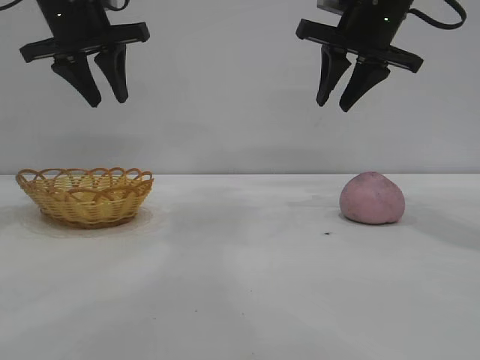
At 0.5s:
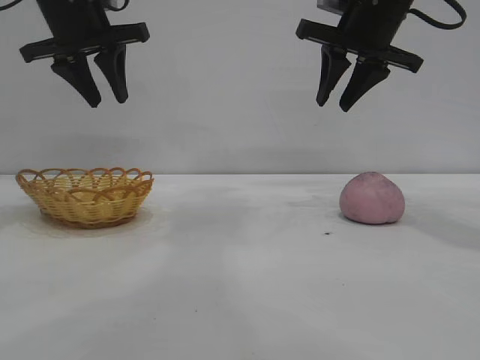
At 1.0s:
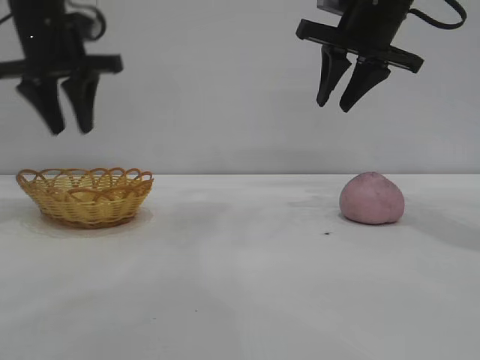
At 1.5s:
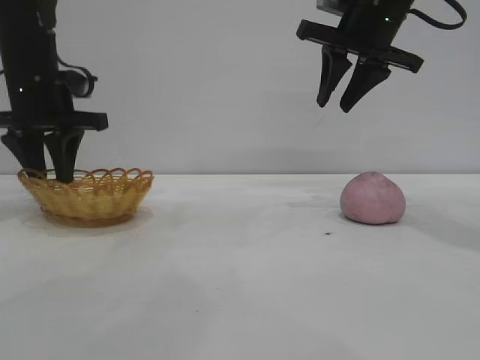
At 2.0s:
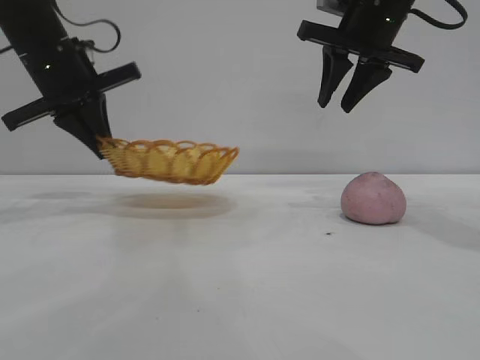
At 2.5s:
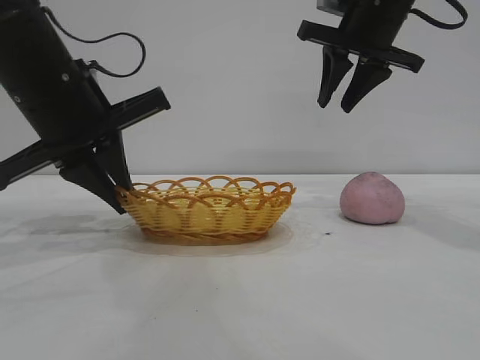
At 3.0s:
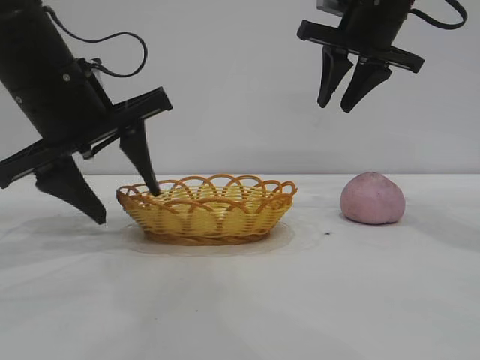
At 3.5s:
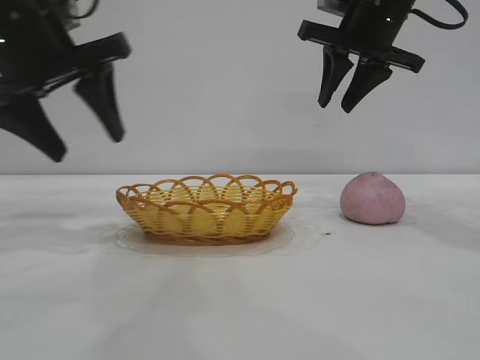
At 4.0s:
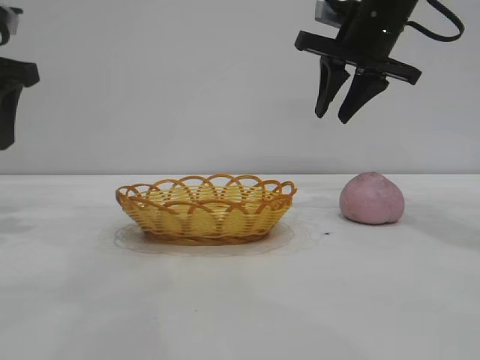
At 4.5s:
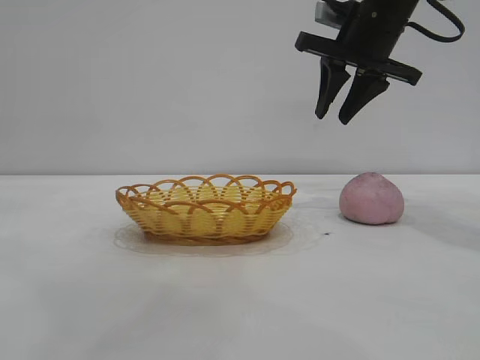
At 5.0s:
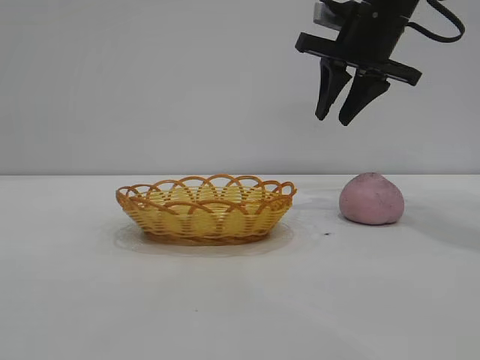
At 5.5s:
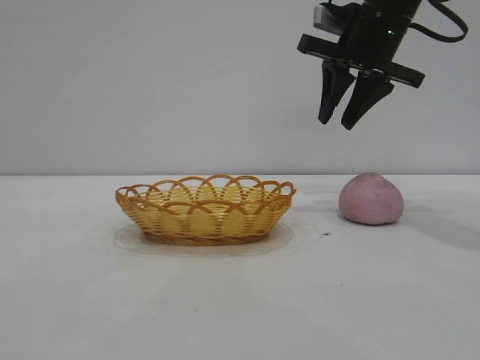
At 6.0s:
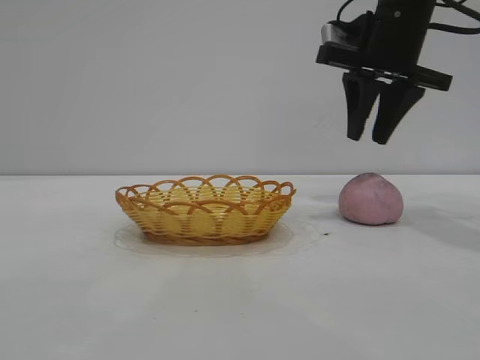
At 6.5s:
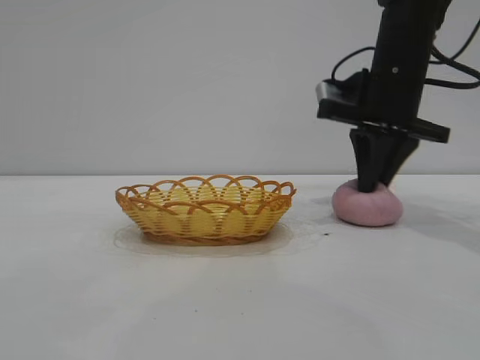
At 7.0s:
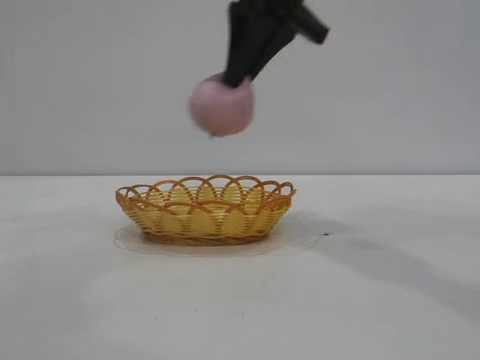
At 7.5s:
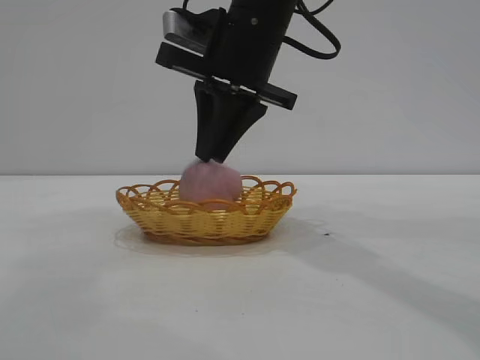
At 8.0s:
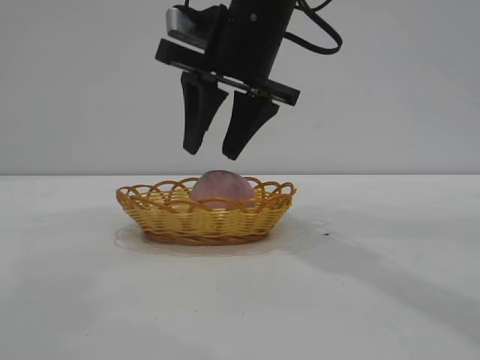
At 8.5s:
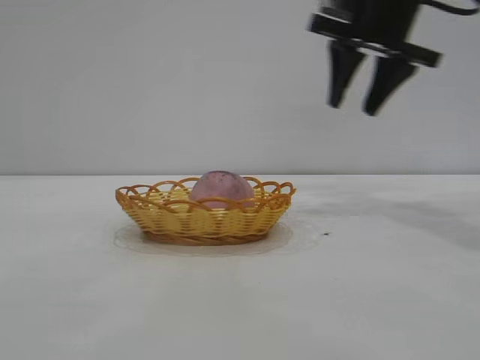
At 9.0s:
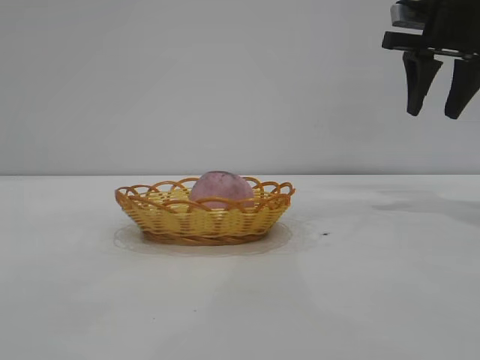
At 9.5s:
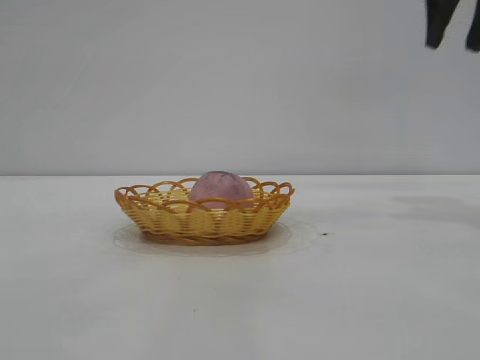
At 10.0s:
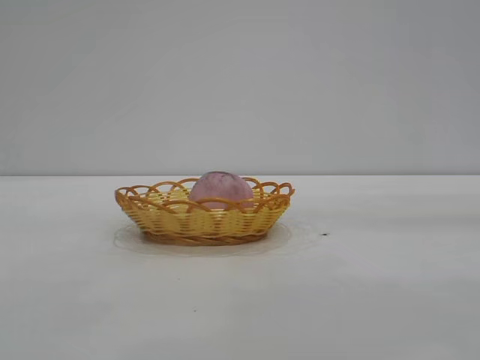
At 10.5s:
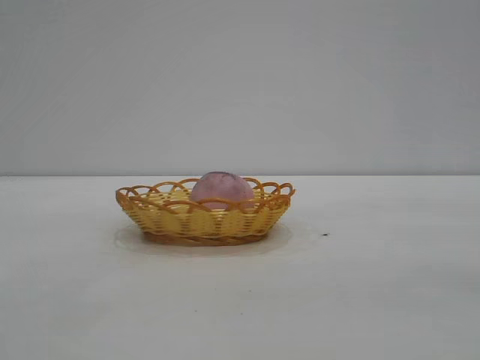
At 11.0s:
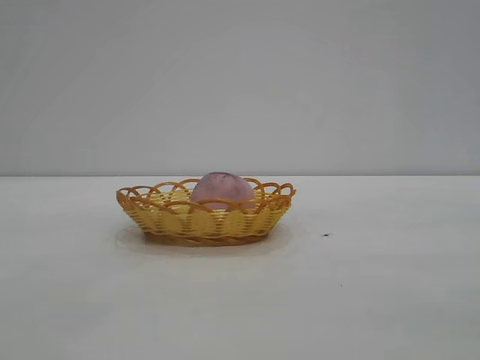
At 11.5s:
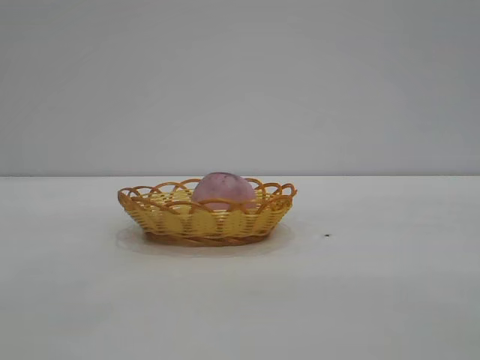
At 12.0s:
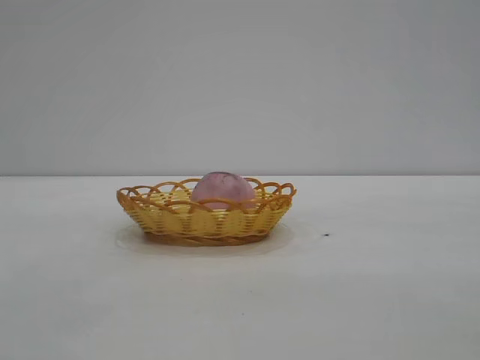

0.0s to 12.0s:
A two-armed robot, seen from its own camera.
Task of the whole recording: pick up the peach and put it into the basket.
Step, 0.0s to 3.0s: Move the basket to the center of view.
Step, 3.5s to 6.5s: Pick up the peach.
Step, 7.0s to 8.0s: place the peach into the basket.

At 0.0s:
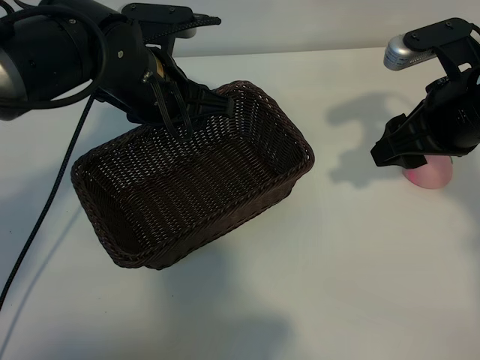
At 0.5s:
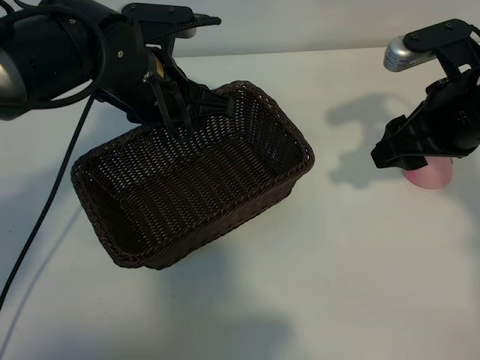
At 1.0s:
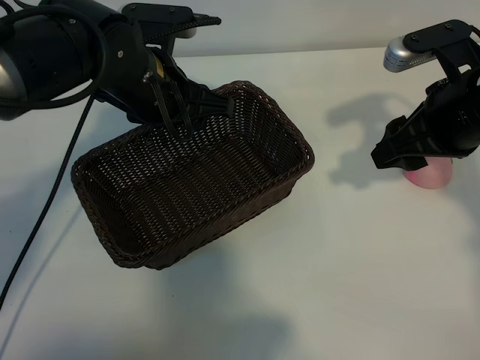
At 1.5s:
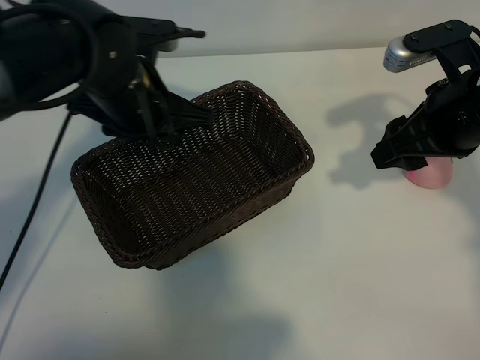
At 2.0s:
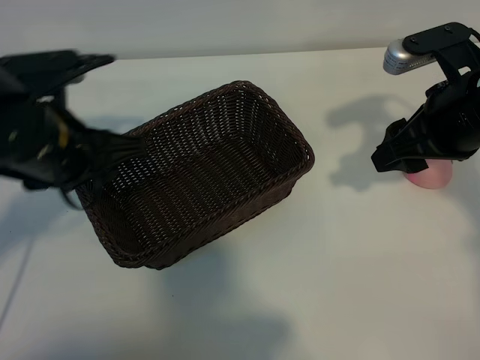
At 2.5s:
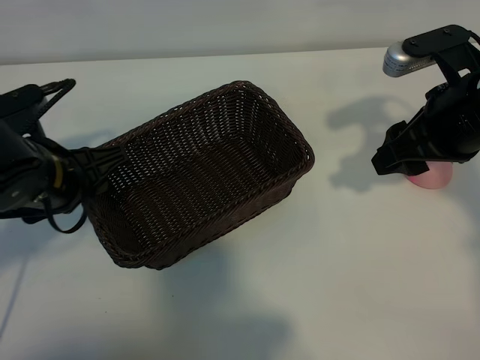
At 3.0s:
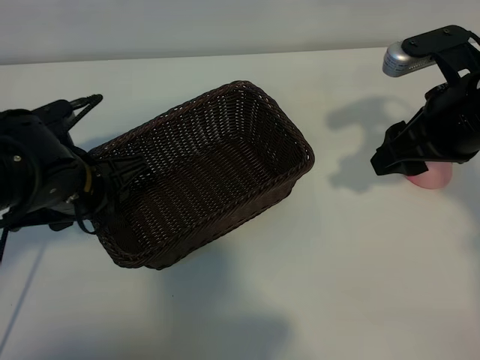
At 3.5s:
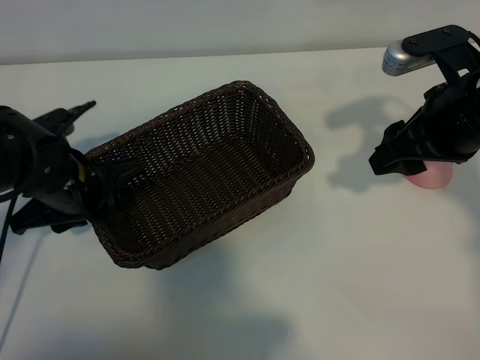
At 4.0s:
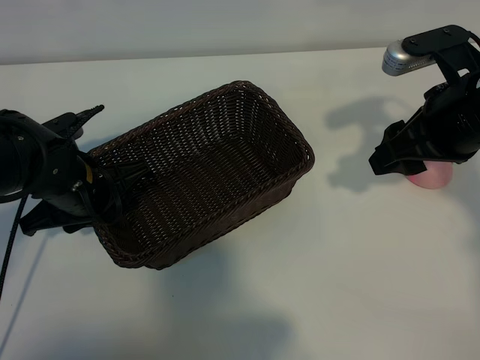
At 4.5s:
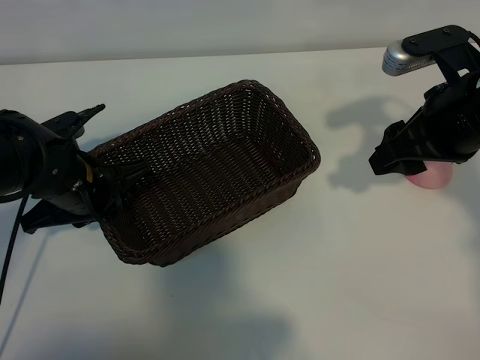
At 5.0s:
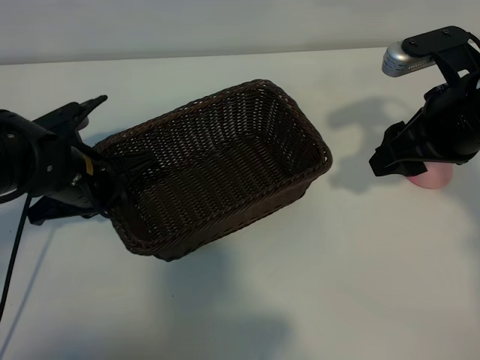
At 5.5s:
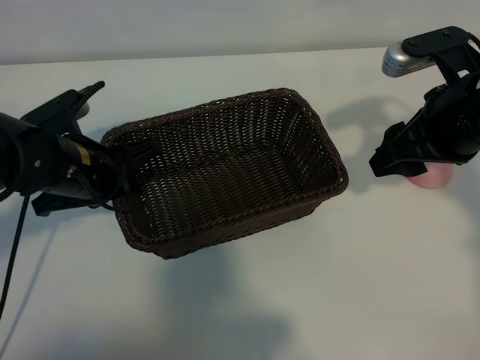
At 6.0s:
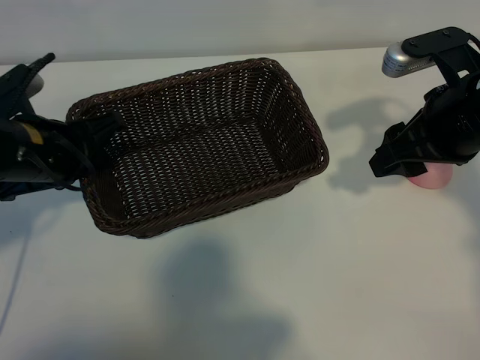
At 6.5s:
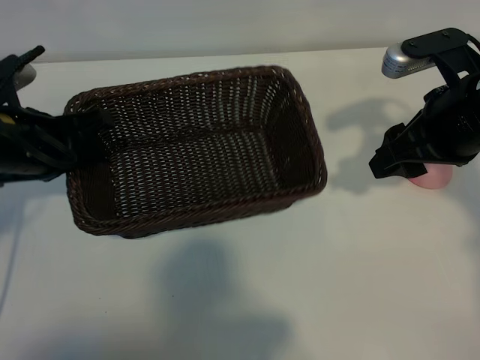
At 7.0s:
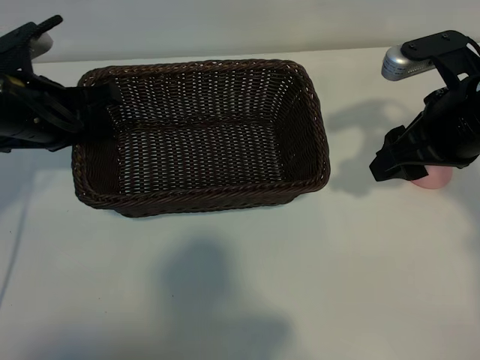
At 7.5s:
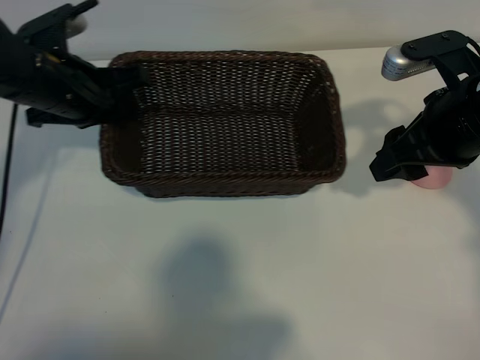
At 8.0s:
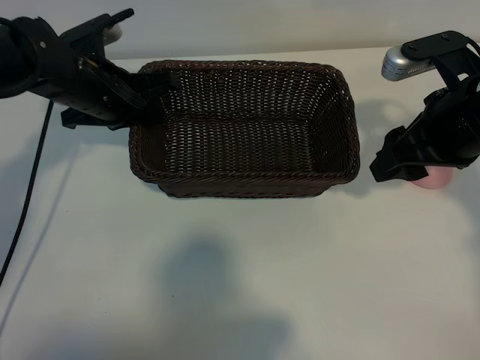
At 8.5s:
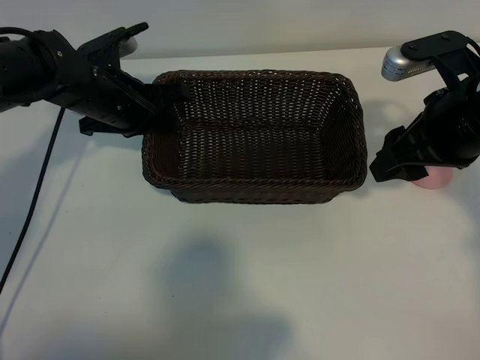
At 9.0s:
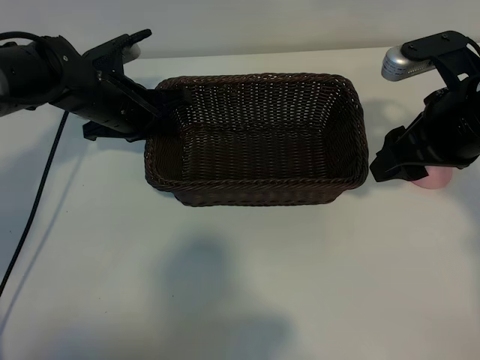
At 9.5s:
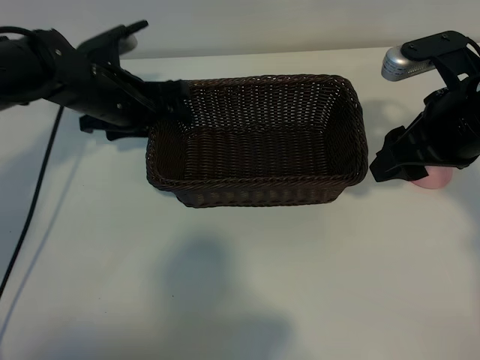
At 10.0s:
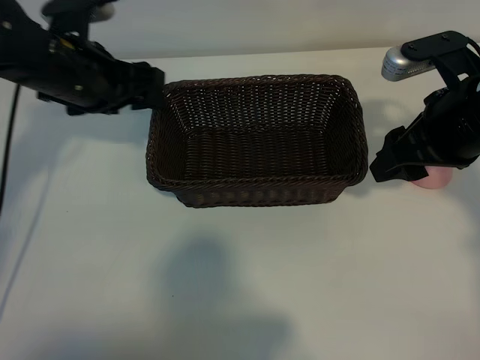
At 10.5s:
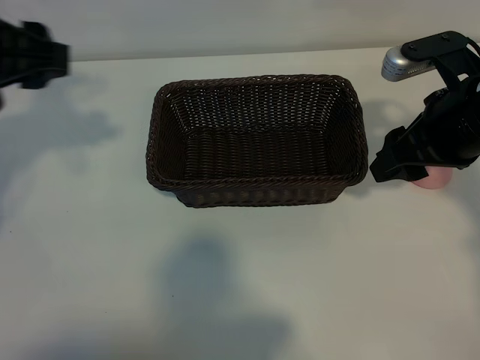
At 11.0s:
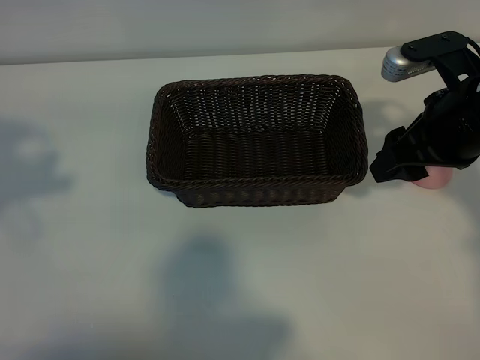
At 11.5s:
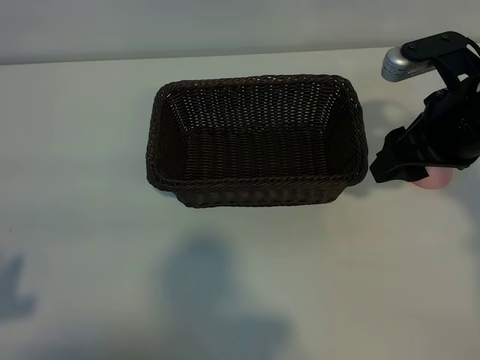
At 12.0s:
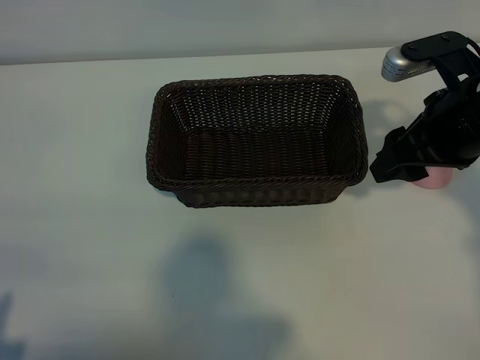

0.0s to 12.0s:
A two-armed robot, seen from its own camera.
Task of the whole recording: pick up the peach and put it into the basket.
Step, 1.5s to 4.5s: Grasp the basket with left gripper.
Step, 5.0s to 9.5s: Place the basket in the center of view with left gripper.

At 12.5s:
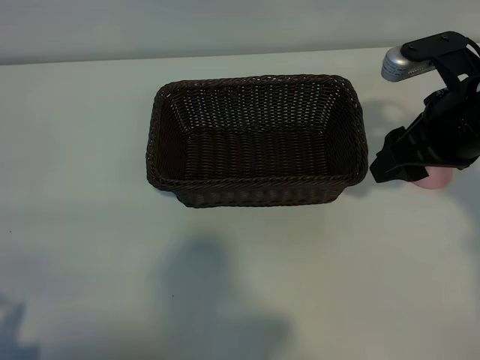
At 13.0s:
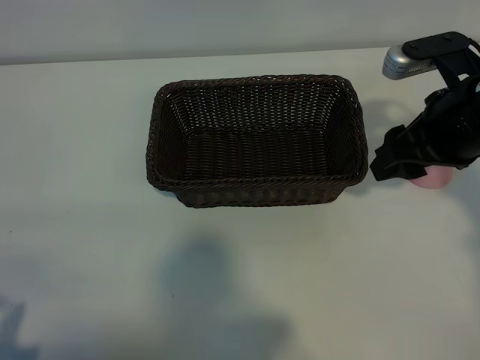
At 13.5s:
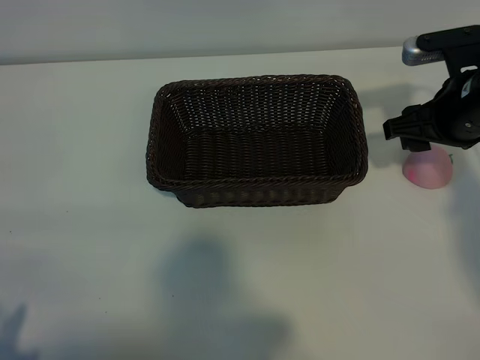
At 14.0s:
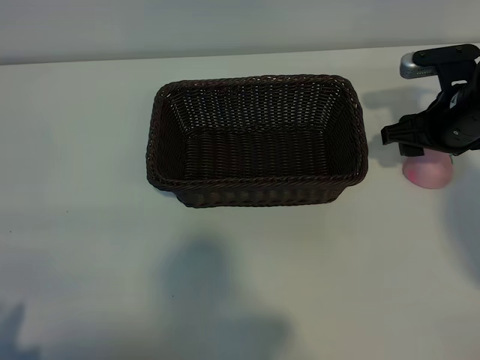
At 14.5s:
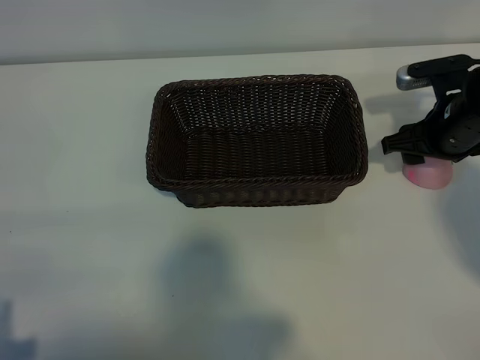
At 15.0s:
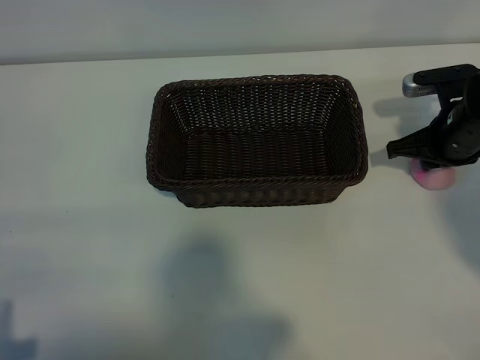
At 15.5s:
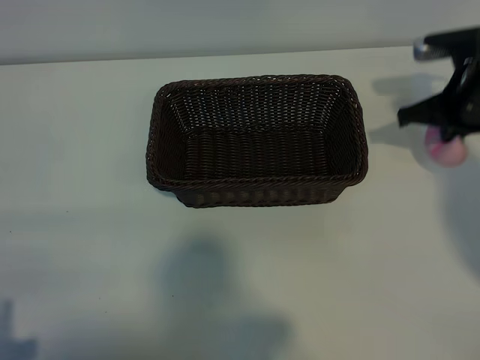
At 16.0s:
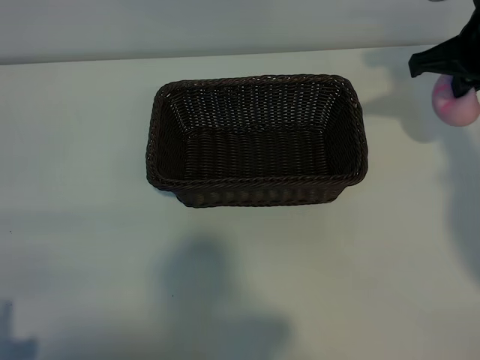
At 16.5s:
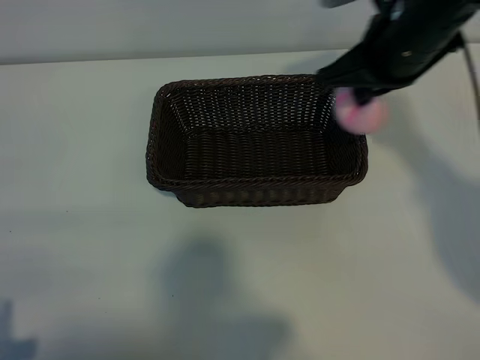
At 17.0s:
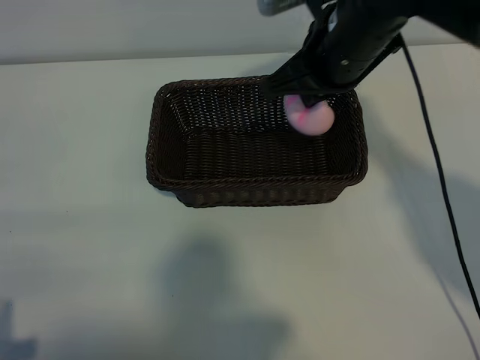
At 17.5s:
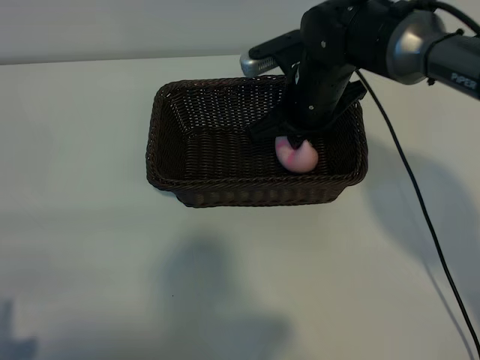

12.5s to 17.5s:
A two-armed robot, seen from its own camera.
Task of the whole recording: pick up the peach and put it into the basket.
Step, 12.5s to 15.0s: Grasp the peach with right gripper.
